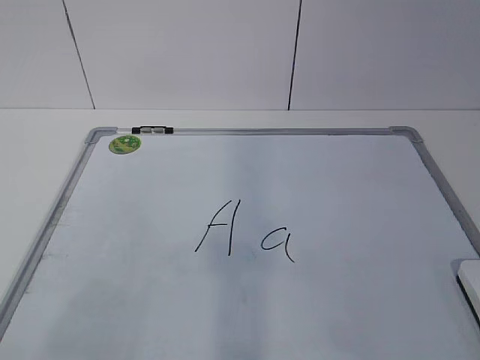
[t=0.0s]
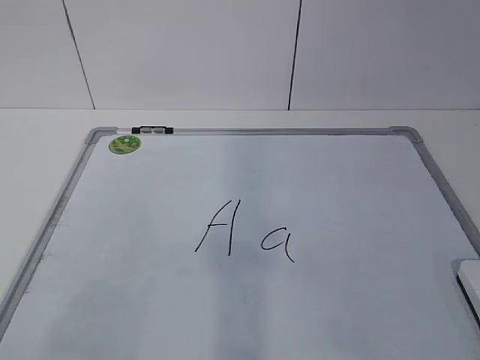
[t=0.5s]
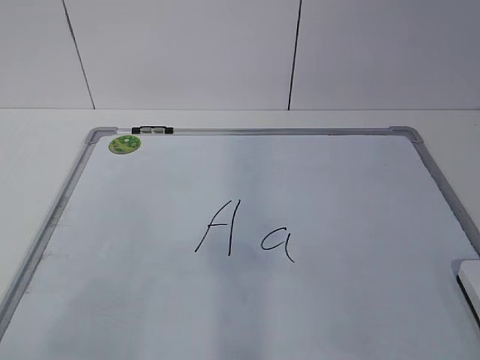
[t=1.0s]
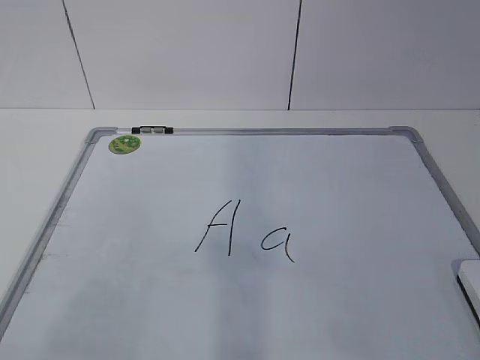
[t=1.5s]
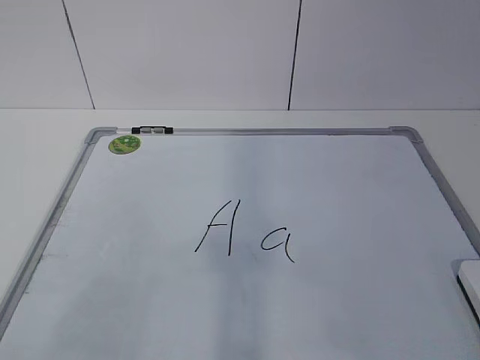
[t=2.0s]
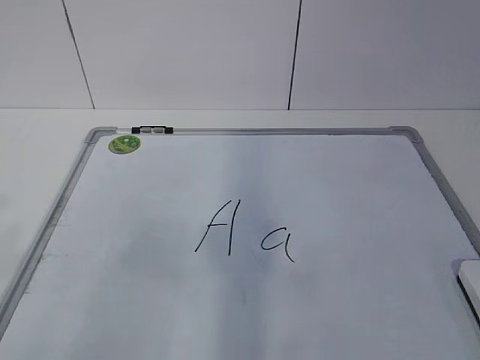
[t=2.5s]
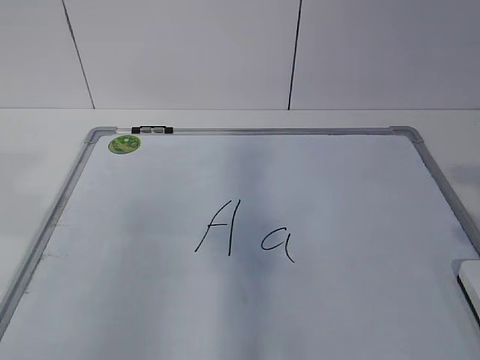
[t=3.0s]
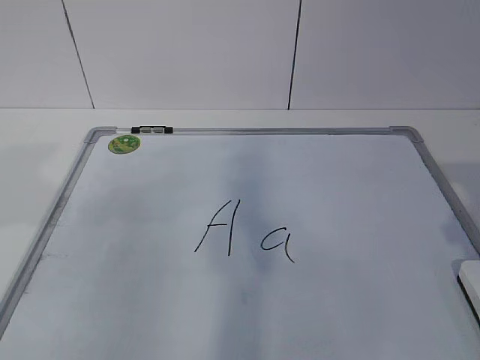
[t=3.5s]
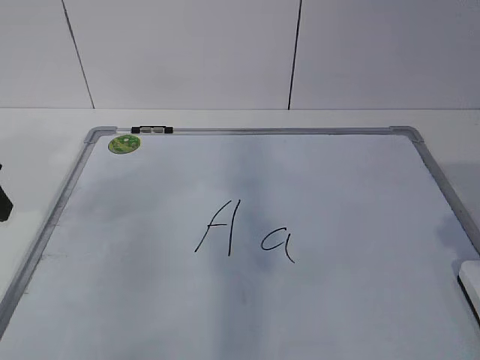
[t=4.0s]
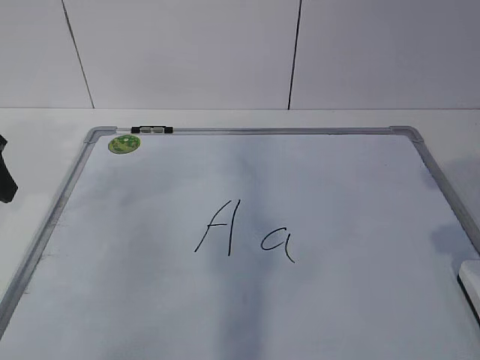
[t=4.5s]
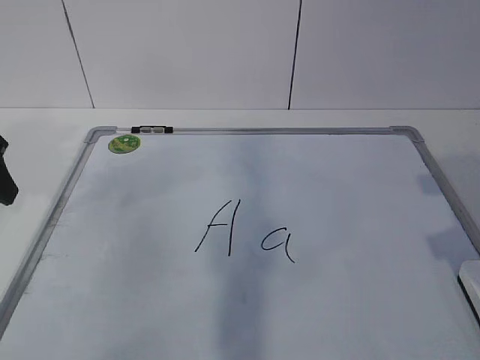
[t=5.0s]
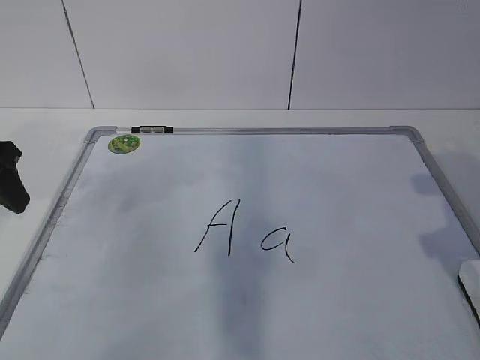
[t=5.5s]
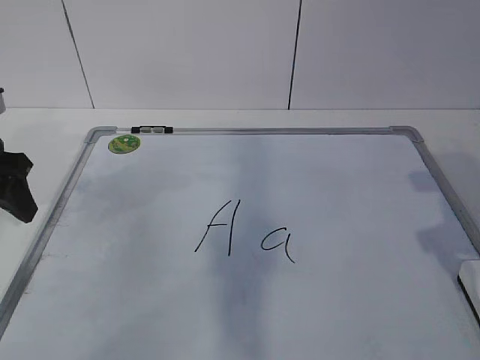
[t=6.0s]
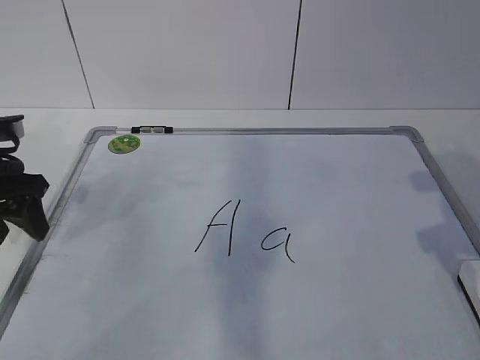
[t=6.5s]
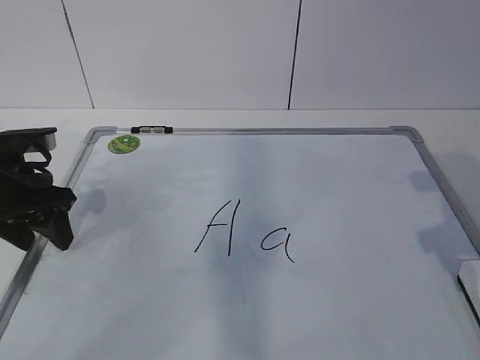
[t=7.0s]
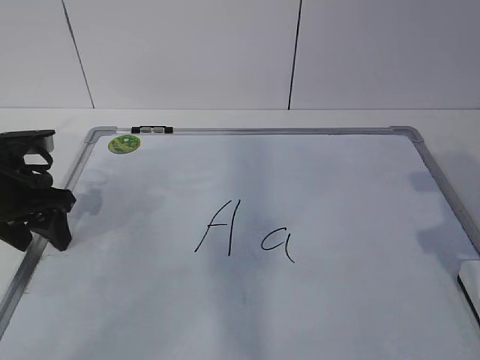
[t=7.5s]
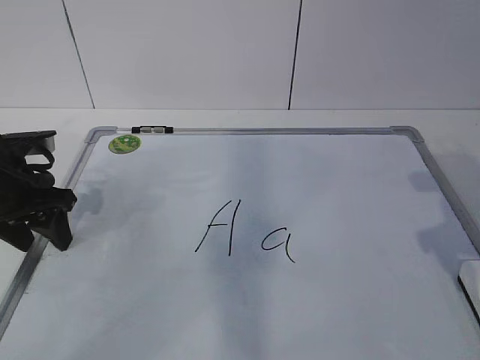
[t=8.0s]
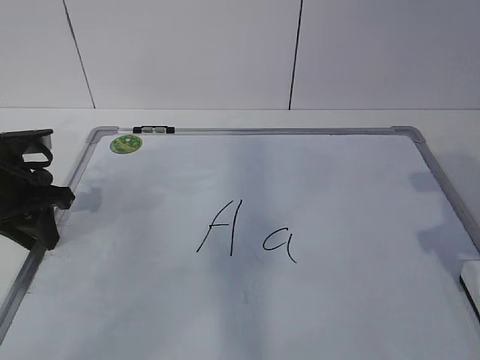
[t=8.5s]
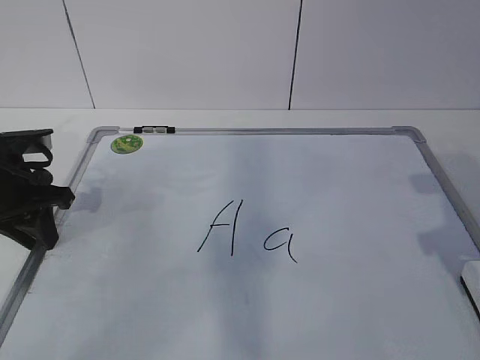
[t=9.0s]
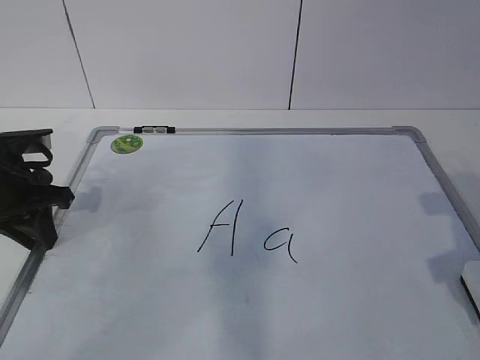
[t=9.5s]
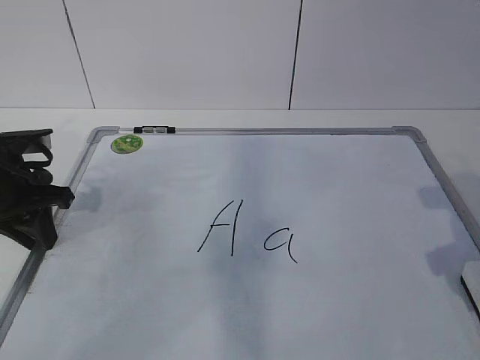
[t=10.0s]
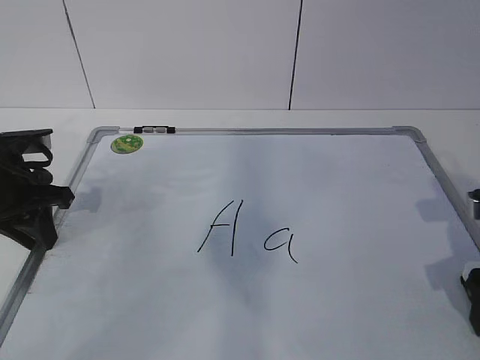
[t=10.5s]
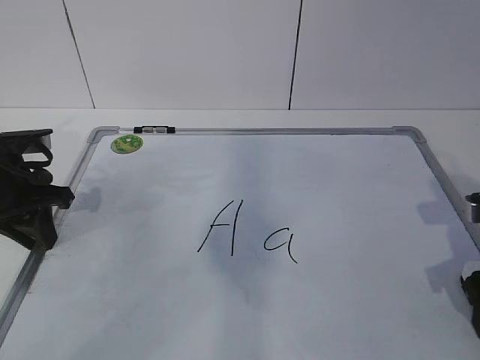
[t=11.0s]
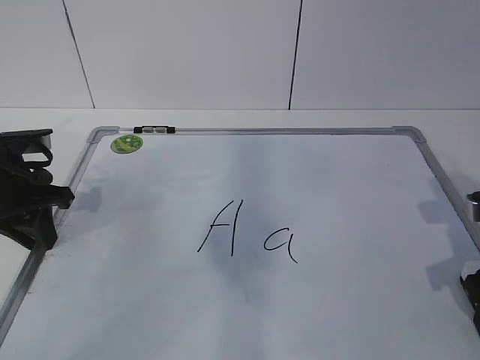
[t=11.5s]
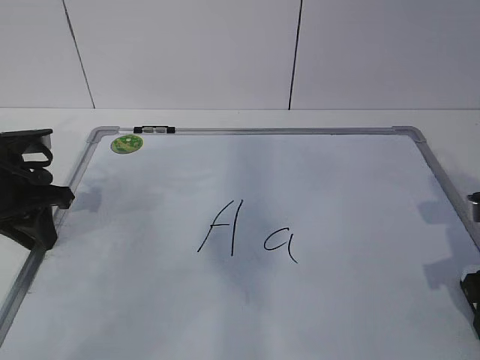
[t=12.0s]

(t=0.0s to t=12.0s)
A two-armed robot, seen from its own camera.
Task of the whole recording: pick up the eraser on the blackboard and erase the letter "a".
Step, t=0.0s - t=7.0s: Hold the drawing board steady with your left hand.
Step, t=7.5s - t=9.0s: Grab the eraser with your right hand.
t=2.0s - t=4.0s: The left gripper moves forward, about 25 cm.
t=6.0s - t=8.0s: The left gripper travels downward by approximately 5 cm.
t=8.0s - t=10.0s: The left gripper closes its fingers.
t=10.0s - t=12.0s: The right gripper closes.

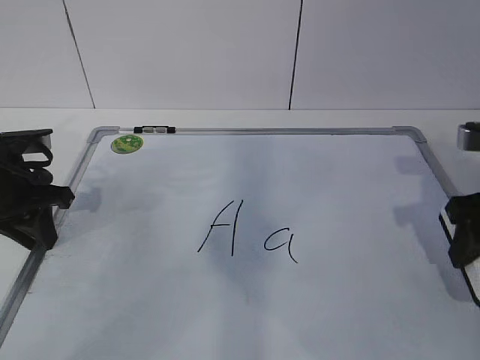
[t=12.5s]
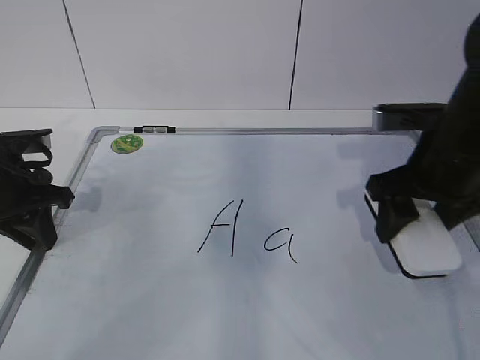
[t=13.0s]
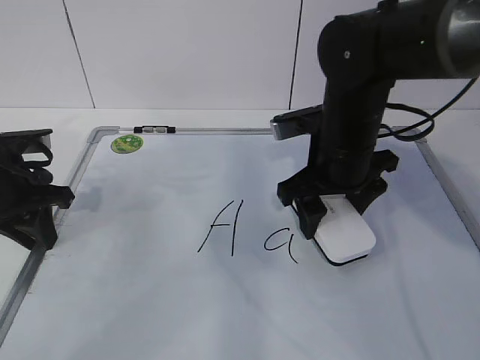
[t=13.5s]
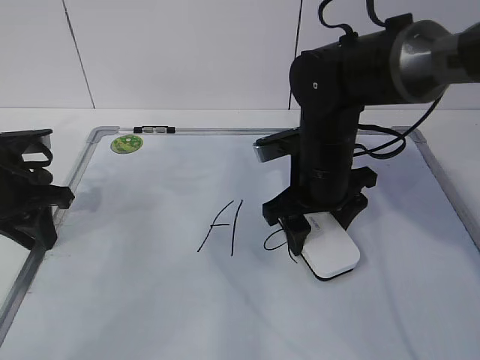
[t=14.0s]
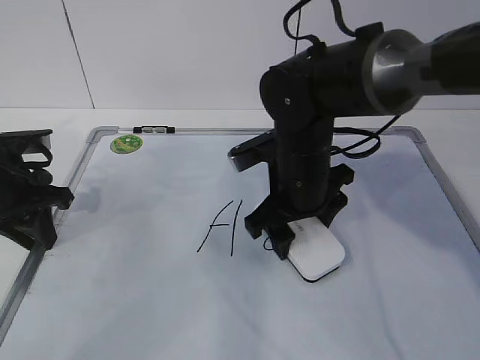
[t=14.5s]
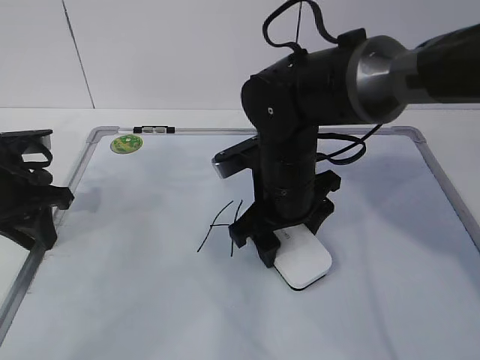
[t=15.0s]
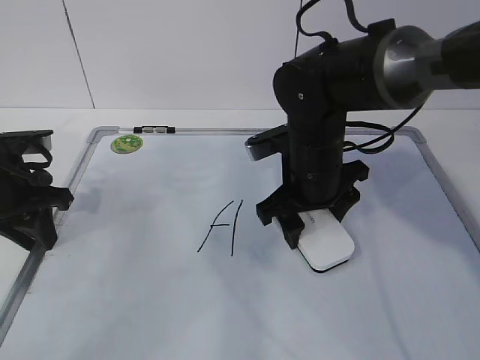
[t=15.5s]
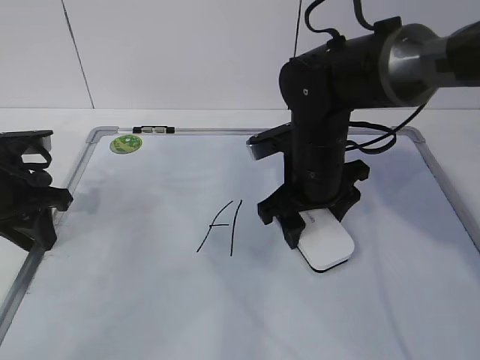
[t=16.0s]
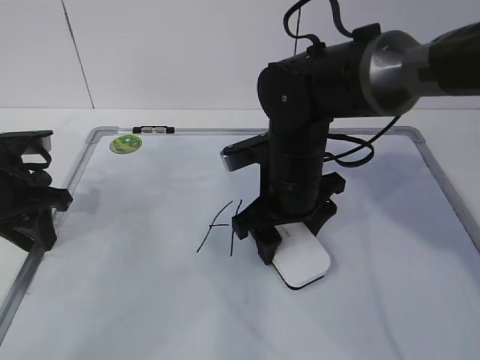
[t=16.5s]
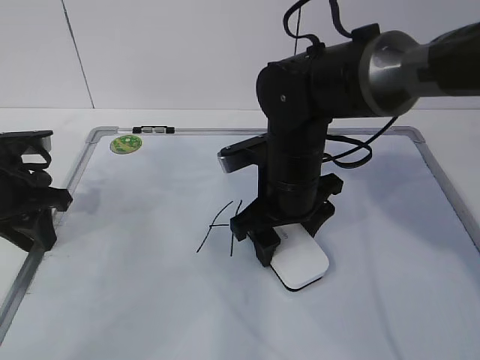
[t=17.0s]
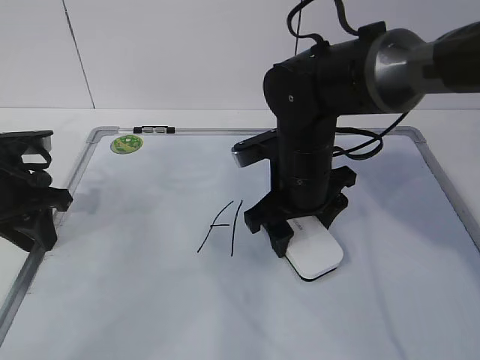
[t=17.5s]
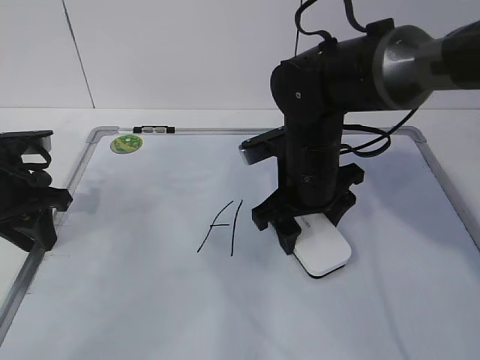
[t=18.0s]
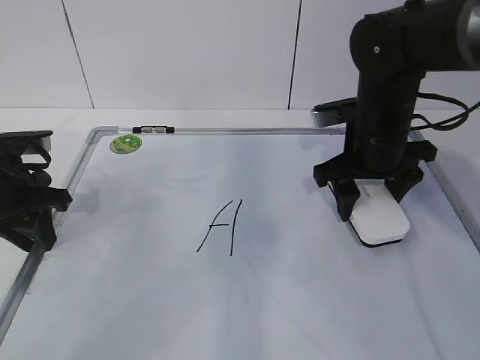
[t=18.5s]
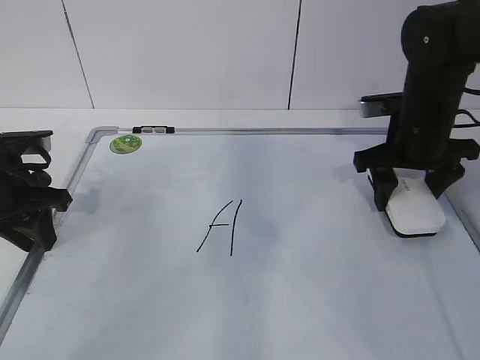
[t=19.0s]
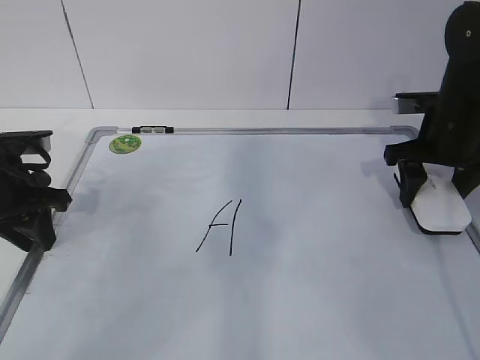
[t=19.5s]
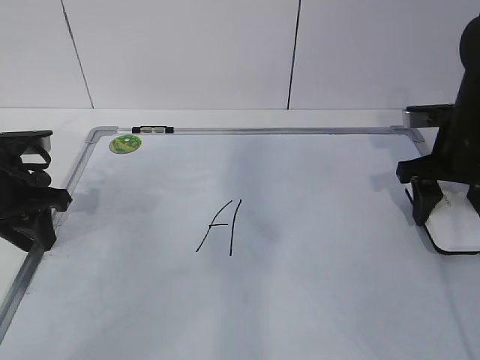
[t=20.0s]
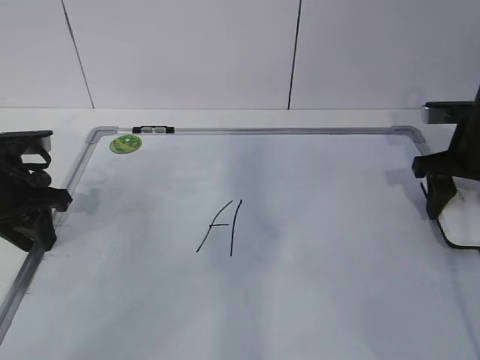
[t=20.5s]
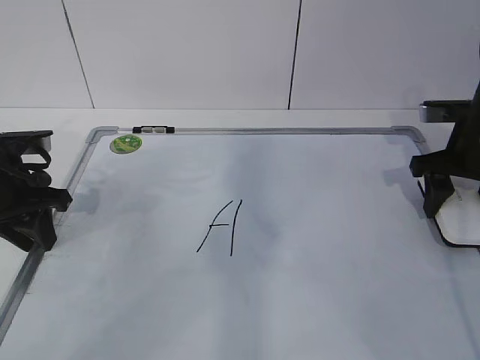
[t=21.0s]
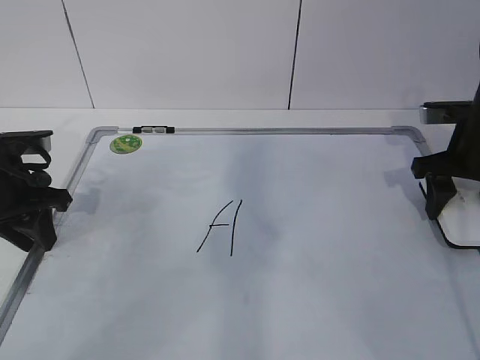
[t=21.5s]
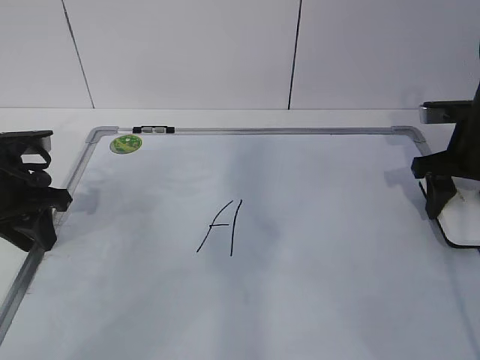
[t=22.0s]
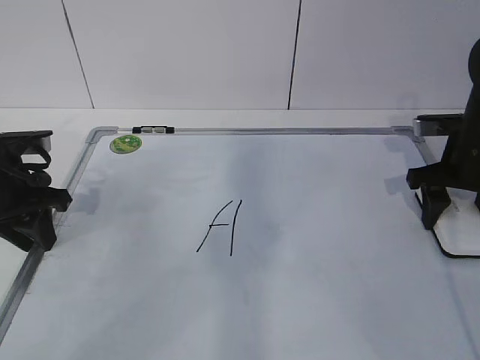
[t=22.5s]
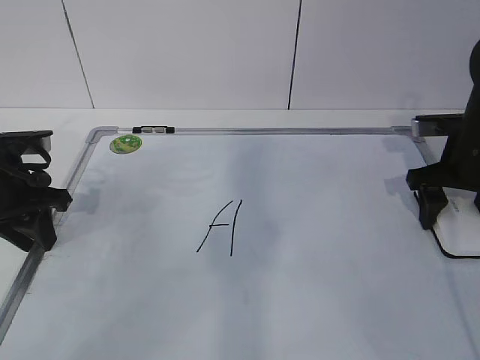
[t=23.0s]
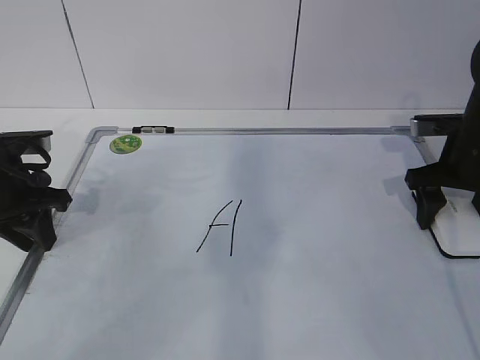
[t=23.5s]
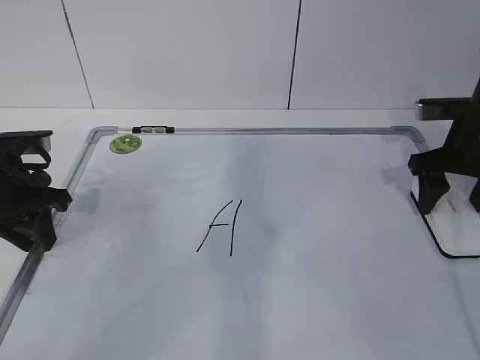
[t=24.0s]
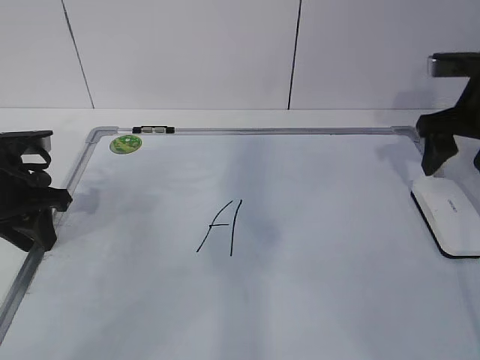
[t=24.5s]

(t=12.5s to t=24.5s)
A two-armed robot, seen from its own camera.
Task of the whole recording: pick up the eraser on the blackboard and erase the letter "a".
Step, t=12.5s - t=14.5s: Erase the letter a with your right hand.
Step, t=15.0s - t=19.0s: Put down the eraser with your right hand.
t=12.5s - t=14.5s: The right gripper moves to the left, approximately 20 cm.
t=14.5s - t=16.5s: The grippers stay close to where they were, moving slightly.
t=16.5s - t=18.5s: The right gripper heads to the right, covering about 10 cm.
t=18.5s - t=20.5s: The right gripper travels to the right by some 15 cm.
t=20.5s - t=22.5s: There are only small adjustments of the grippers.
t=22.5s - t=24.5s: The right gripper is displaced upward by about 5 cm, and opens.

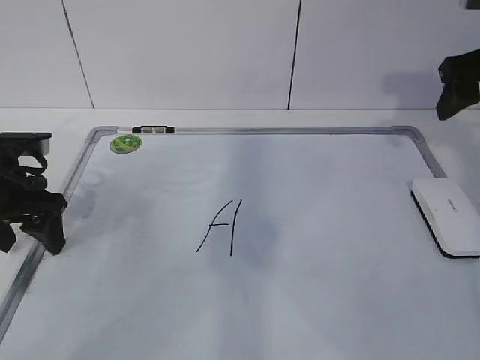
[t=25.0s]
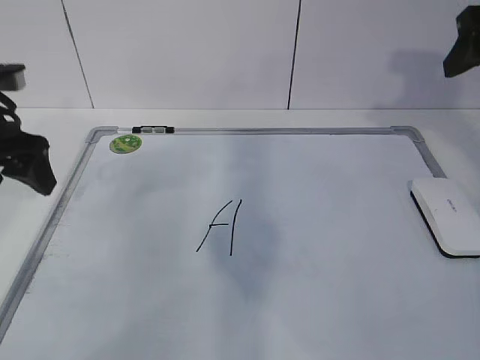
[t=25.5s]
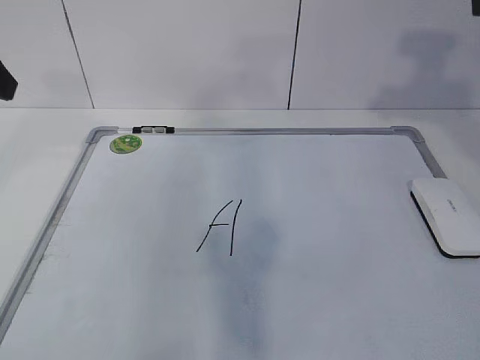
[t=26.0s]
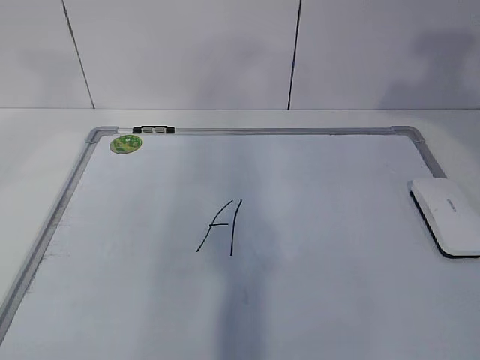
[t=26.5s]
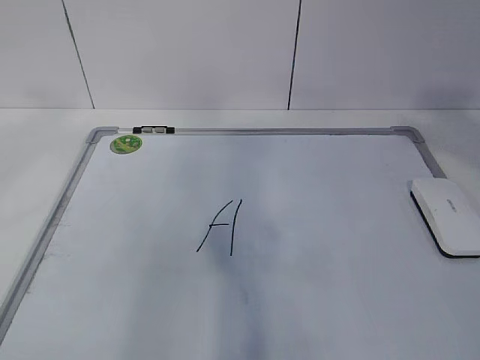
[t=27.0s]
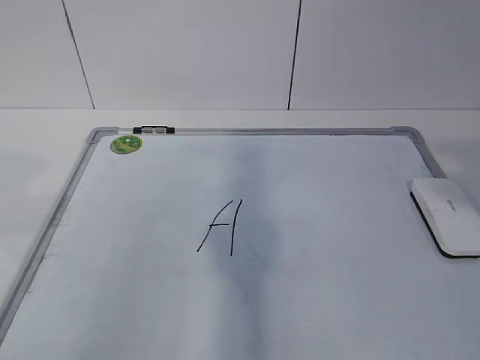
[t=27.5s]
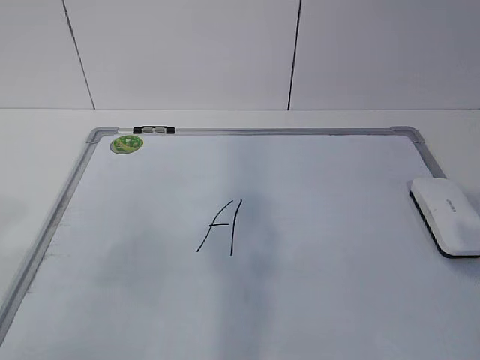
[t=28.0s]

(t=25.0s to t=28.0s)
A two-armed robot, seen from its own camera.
Task of the whole recording: pick up the eraser on the blackboard and erase the letter "a".
t=25.0s - t=26.5s: The right gripper heads upward and backward, covering roughly 20 cm; the left gripper goes roughly 25 cm upward.
t=26.5s - t=28.0s: Both grippers move backward and downward, approximately 20 cm.
